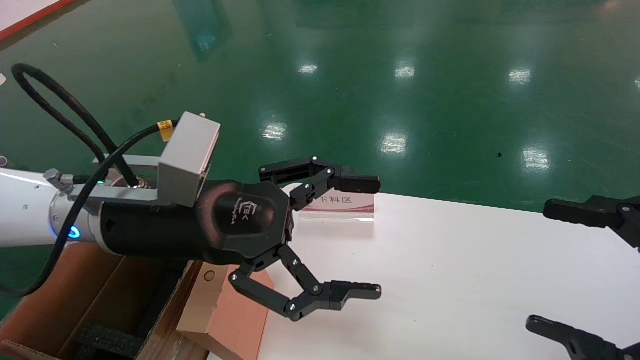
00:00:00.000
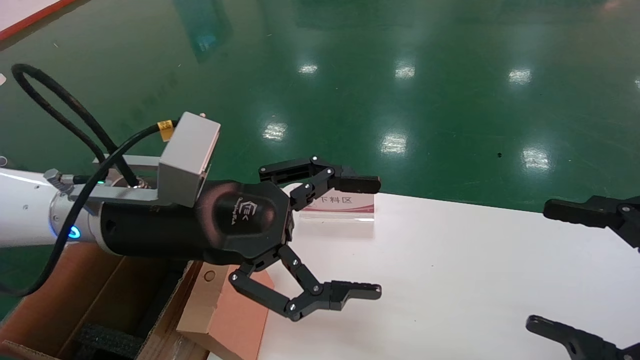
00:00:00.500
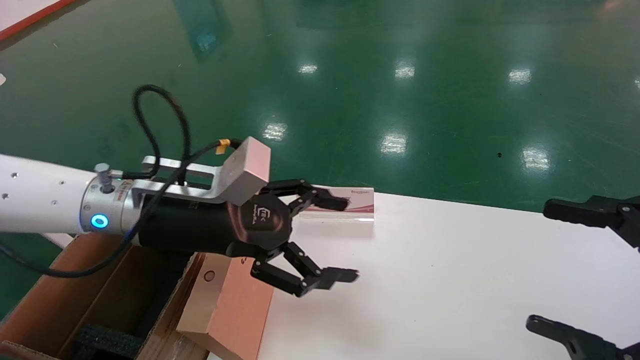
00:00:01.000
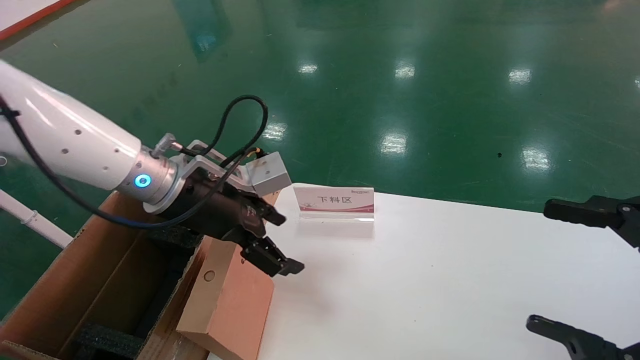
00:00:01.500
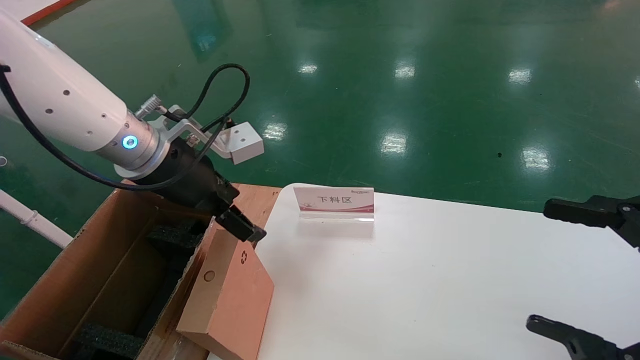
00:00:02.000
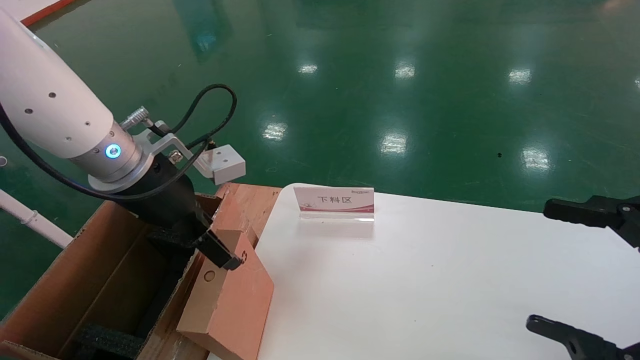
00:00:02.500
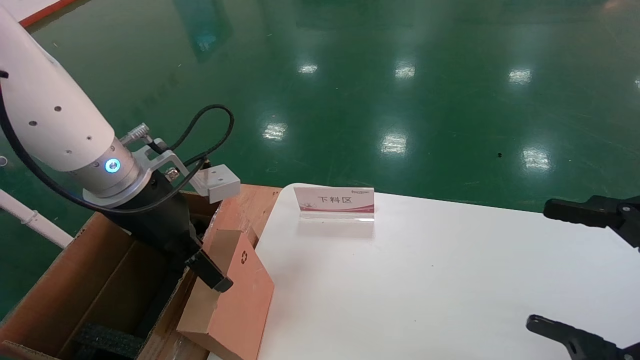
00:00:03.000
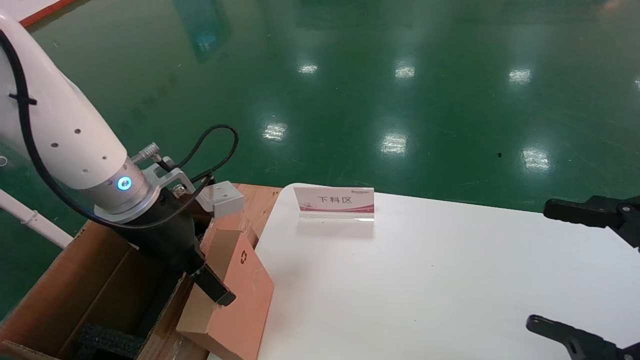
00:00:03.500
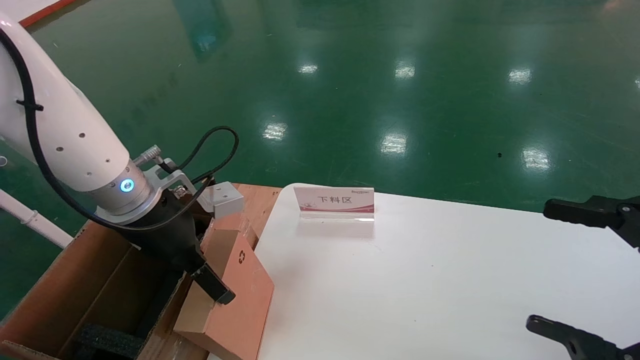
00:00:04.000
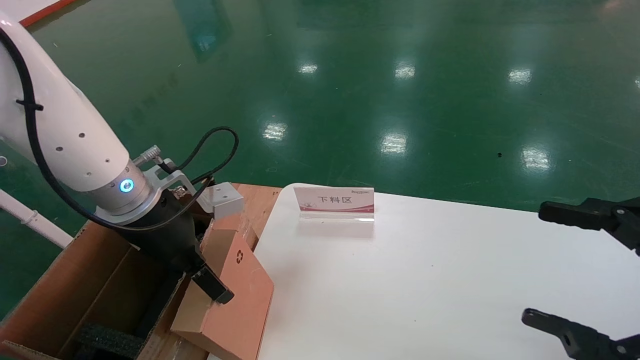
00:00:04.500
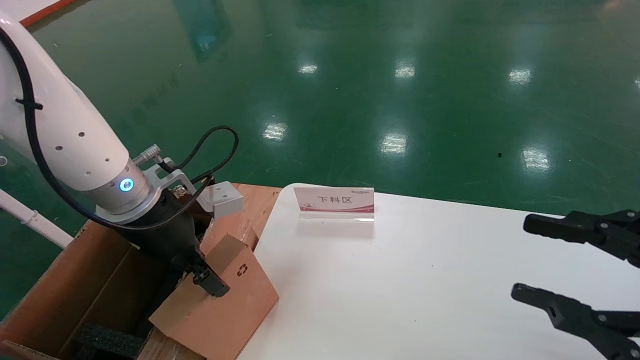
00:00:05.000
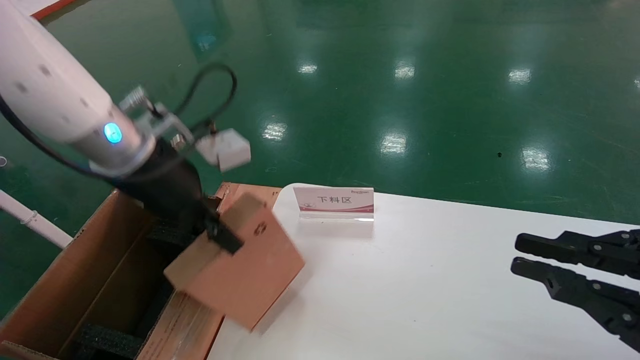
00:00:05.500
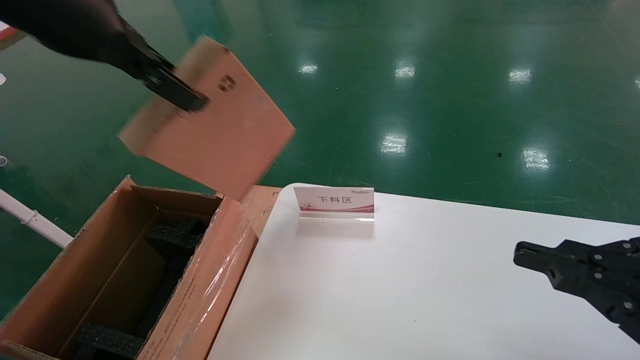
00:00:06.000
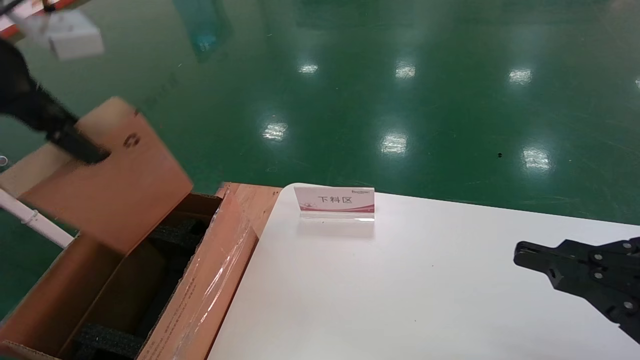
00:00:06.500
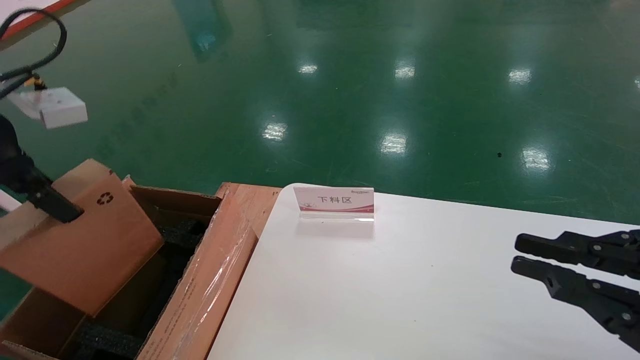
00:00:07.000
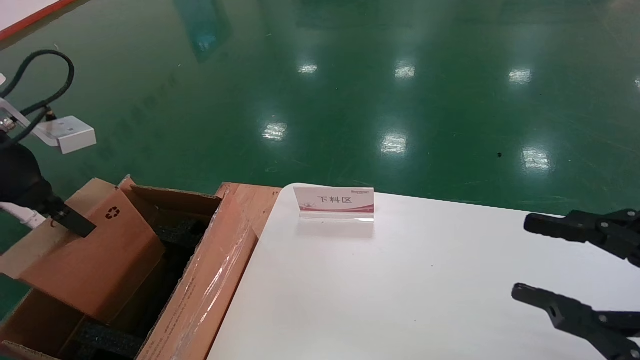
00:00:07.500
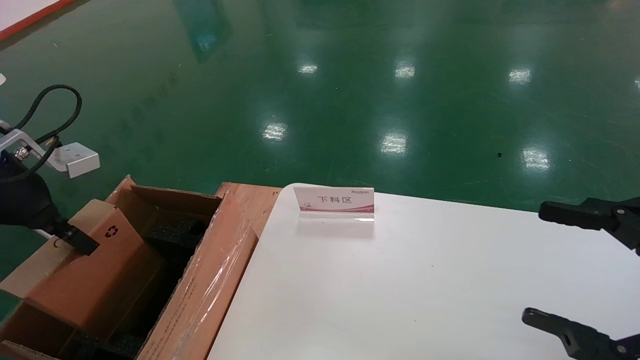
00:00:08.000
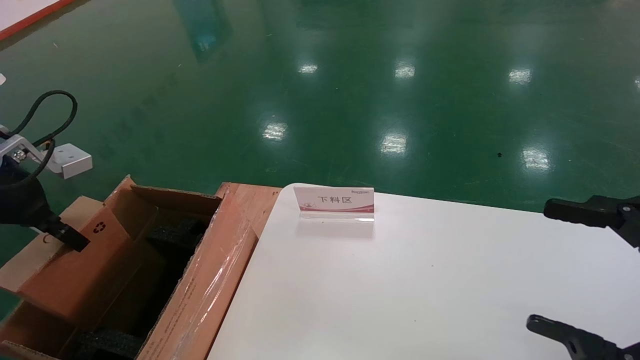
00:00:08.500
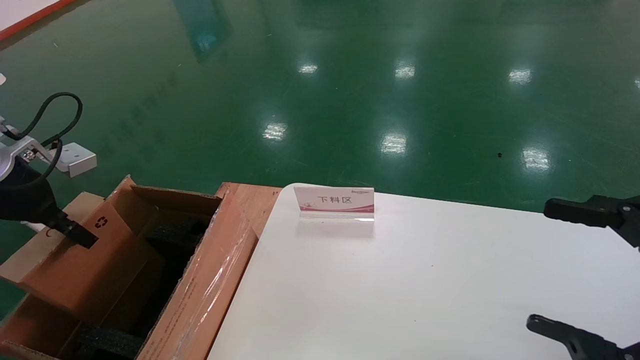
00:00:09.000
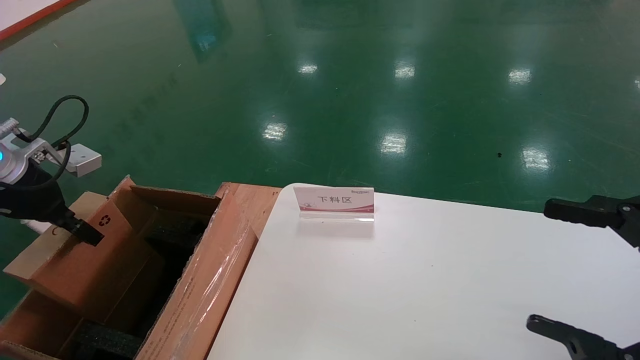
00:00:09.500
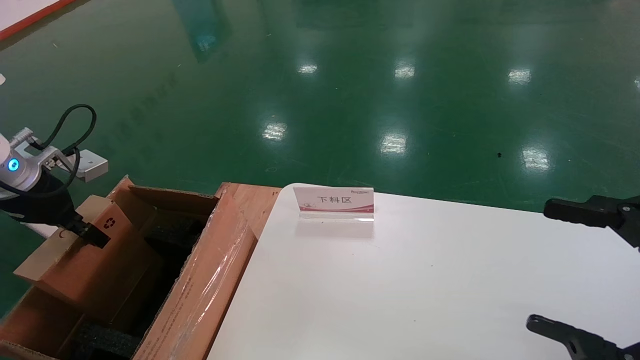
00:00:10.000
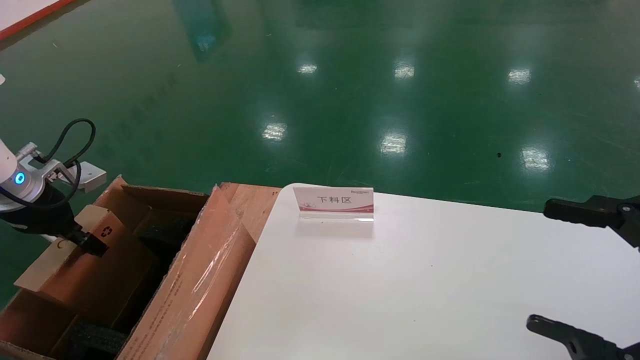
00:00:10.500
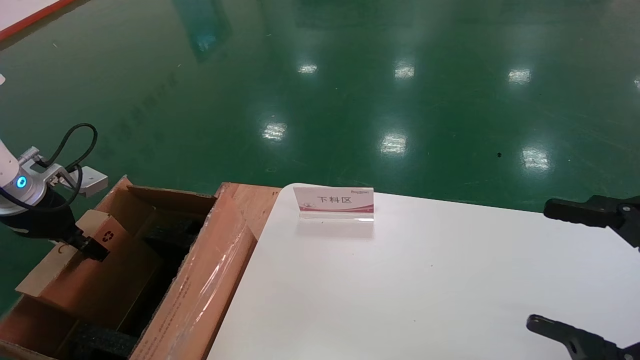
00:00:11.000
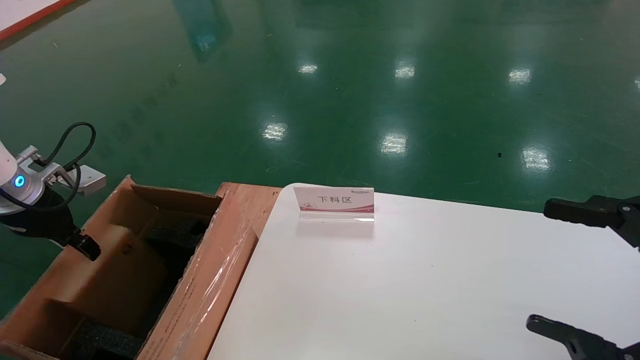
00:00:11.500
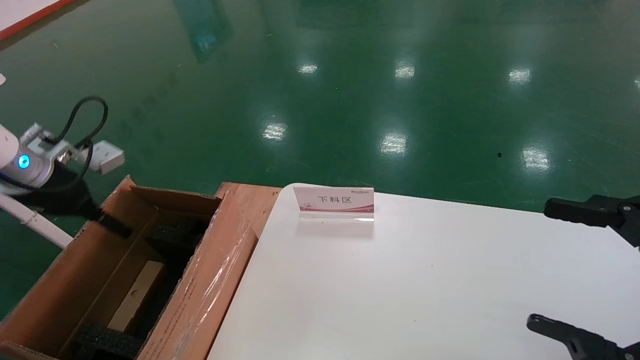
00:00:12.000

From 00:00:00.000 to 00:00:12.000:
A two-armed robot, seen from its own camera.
Task of the whole recording: pick up the small cardboard box and load it into the large cardboard box.
Step, from 00:00:01.000 to 00:00:05.000: Pick up the mouse and power cord box.
Step, from 00:00:05.500 to 00:00:11.500: Place the mouse and power cord box into the case.
From 00:00:00.000 to 00:00:02.000: The left gripper is displaced forward by some 10 cm.
From 00:00:02.000 to 00:00:04.000: The left gripper changes place by approximately 5 cm.
From 00:00:04.000 to 00:00:06.000: The right gripper closes. The left gripper travels upward by approximately 20 cm, and closes.
From 00:00:06.000 to 00:00:08.000: The right gripper opens; the left gripper goes some 25 cm downward and to the left.
From 00:00:08.000 to 00:00:10.000: The left gripper shifts by roughly 10 cm.
From 00:00:10.000 to 00:00:12.000: The left gripper opens.

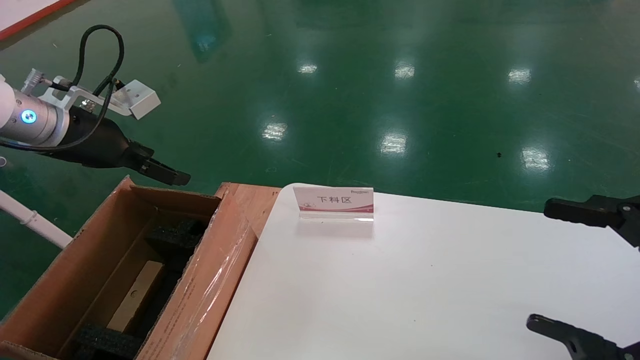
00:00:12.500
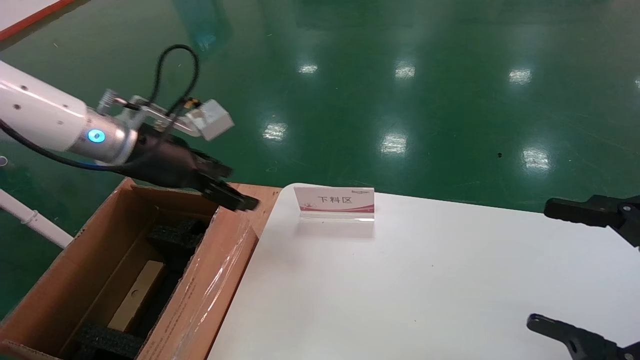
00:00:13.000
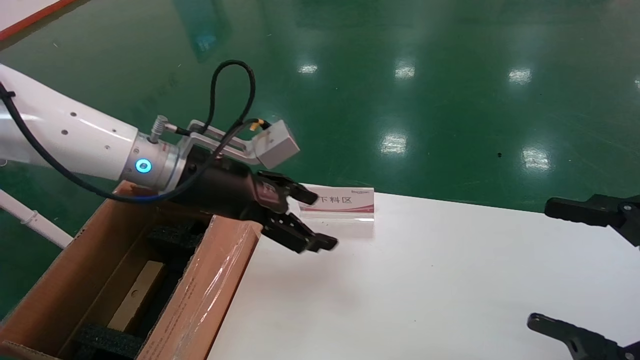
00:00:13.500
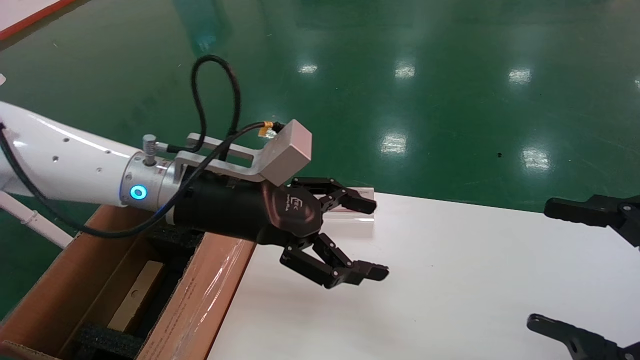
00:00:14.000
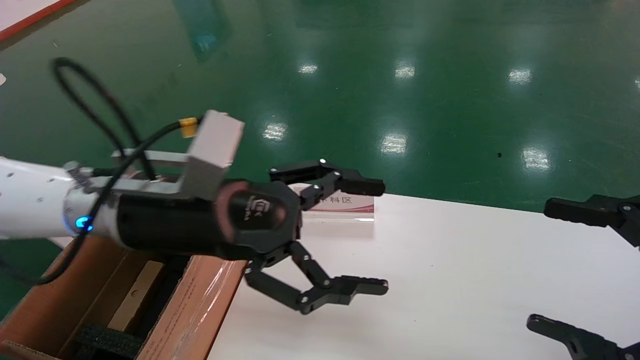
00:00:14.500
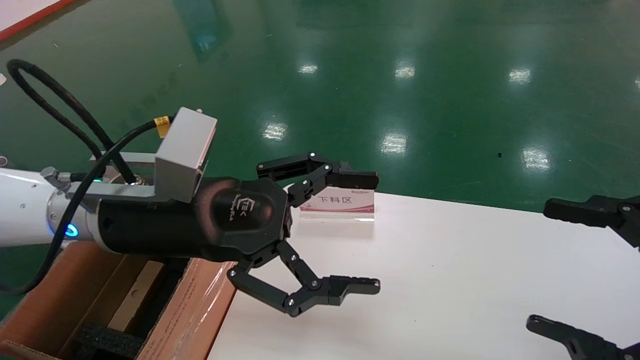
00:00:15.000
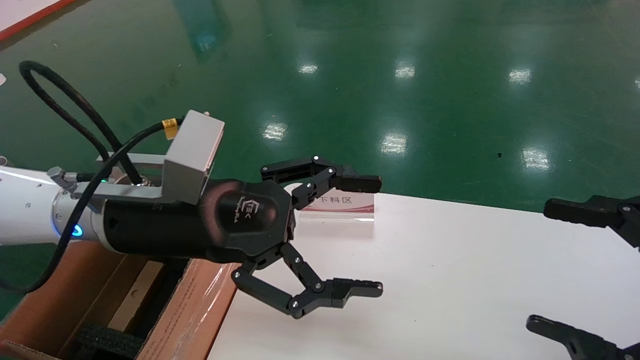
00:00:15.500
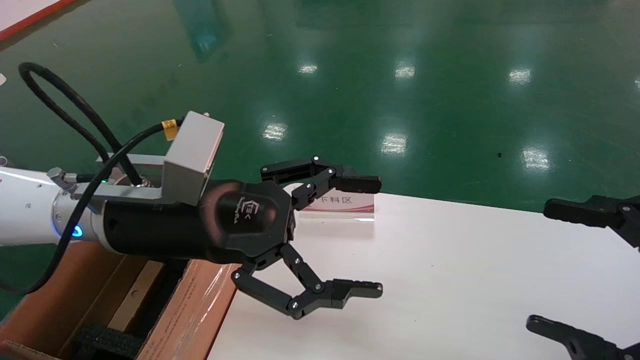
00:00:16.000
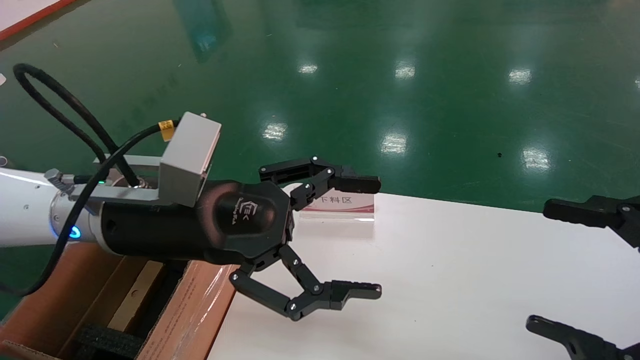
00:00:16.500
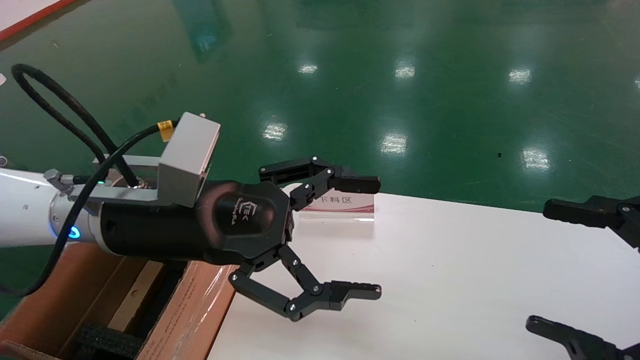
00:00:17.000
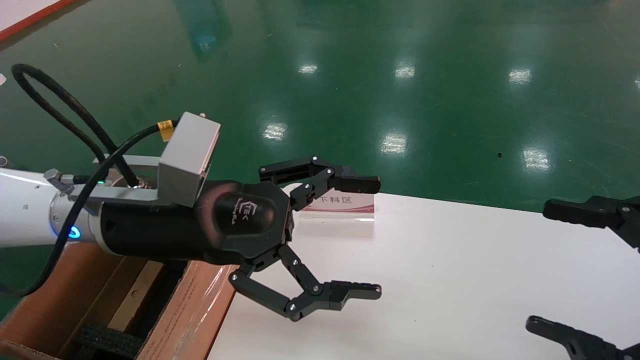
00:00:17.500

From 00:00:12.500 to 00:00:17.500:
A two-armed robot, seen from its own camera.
Task of the whole recording: pick up the small cardboard box and load it into the large cardboard box.
From 00:00:12.500 to 00:00:15.000: The left gripper is displaced to the right and backward by roughly 20 cm.
From 00:00:15.000 to 00:00:17.500: Neither gripper changes place.
